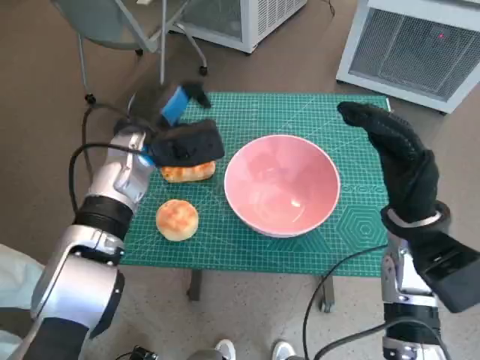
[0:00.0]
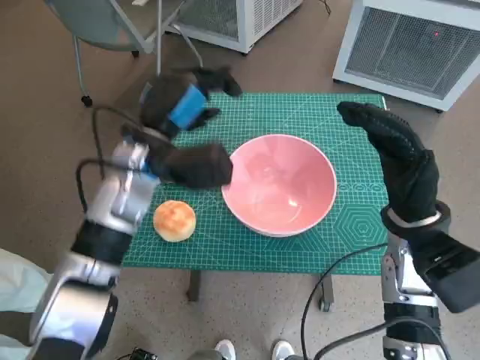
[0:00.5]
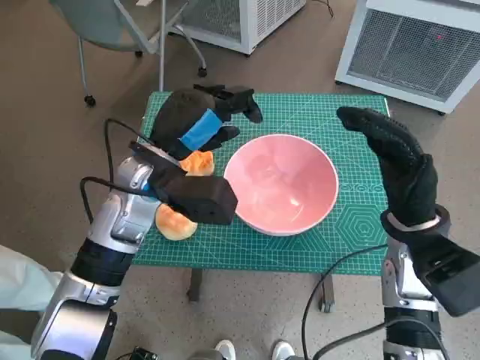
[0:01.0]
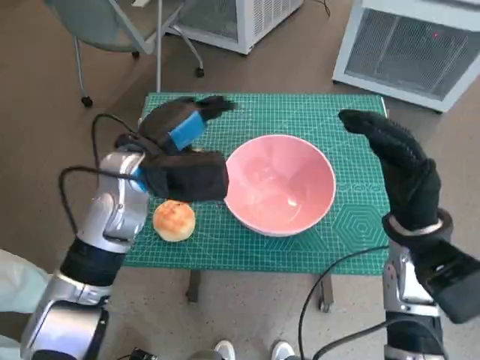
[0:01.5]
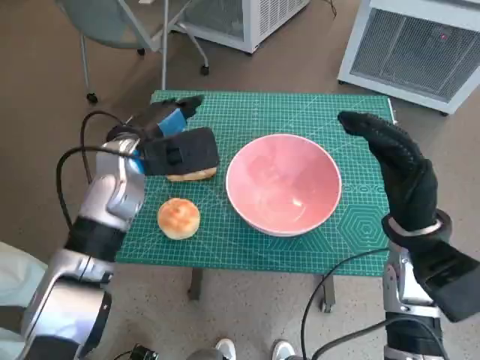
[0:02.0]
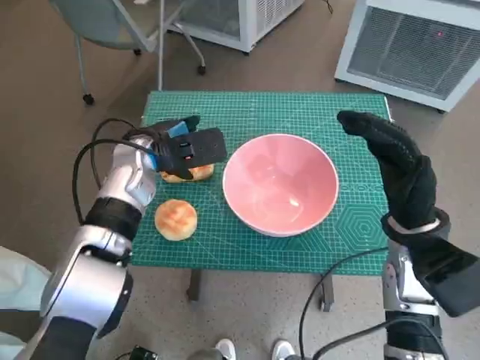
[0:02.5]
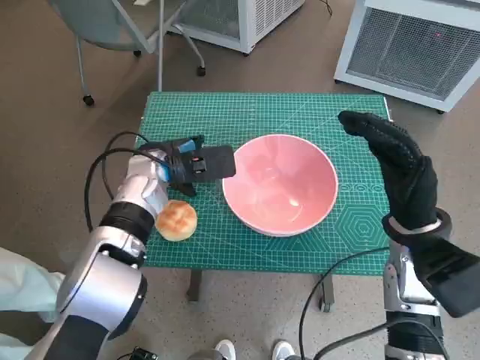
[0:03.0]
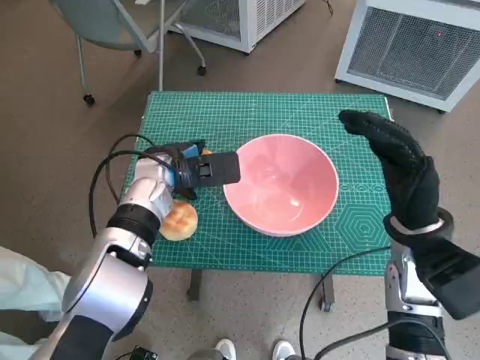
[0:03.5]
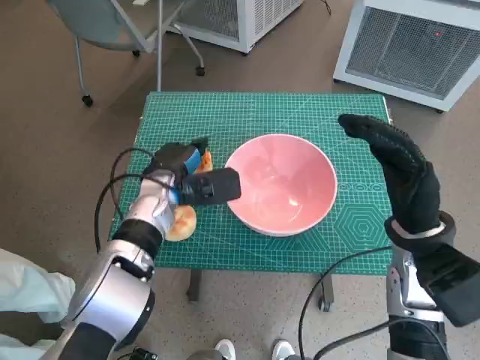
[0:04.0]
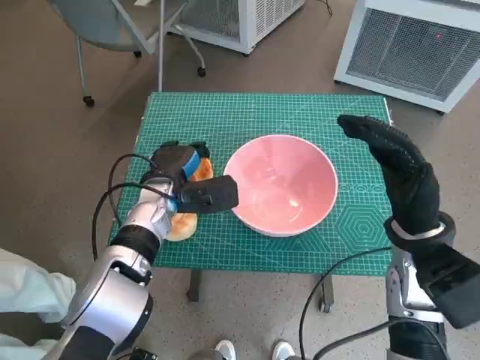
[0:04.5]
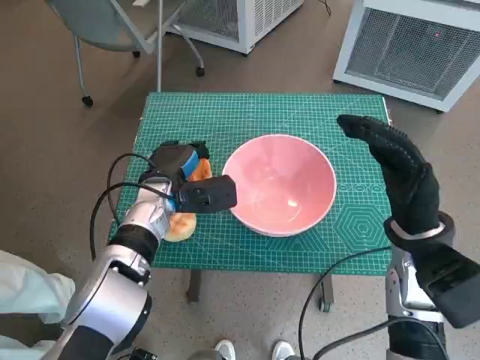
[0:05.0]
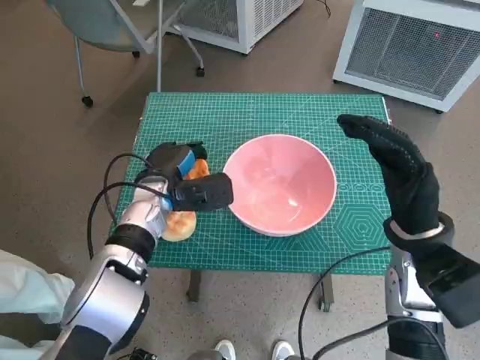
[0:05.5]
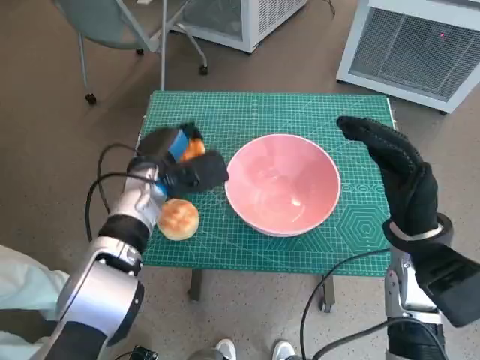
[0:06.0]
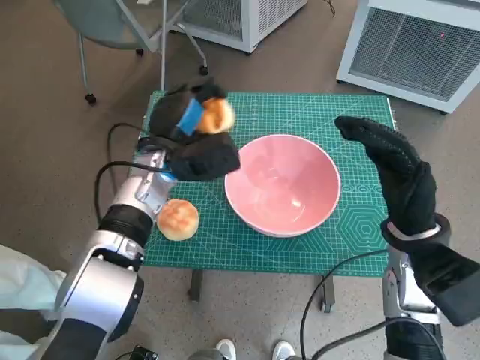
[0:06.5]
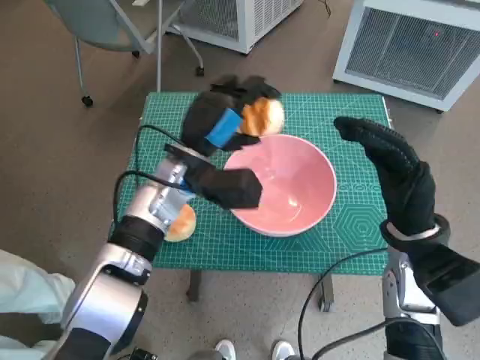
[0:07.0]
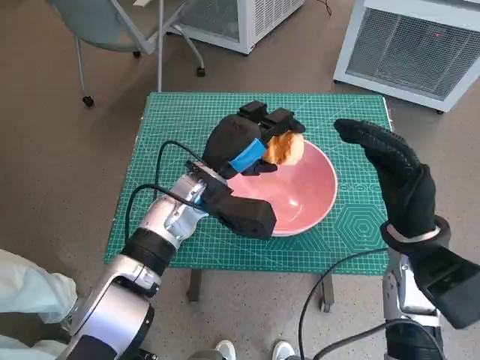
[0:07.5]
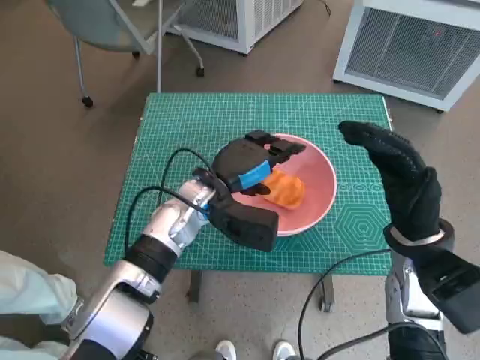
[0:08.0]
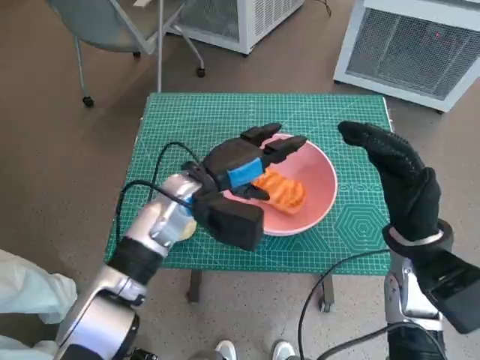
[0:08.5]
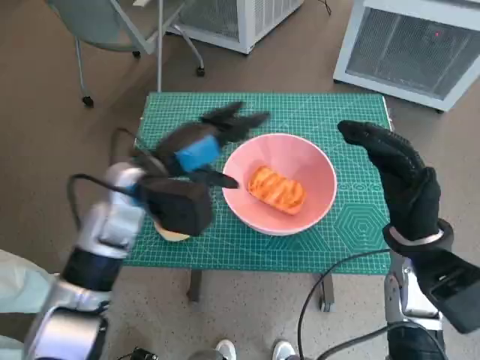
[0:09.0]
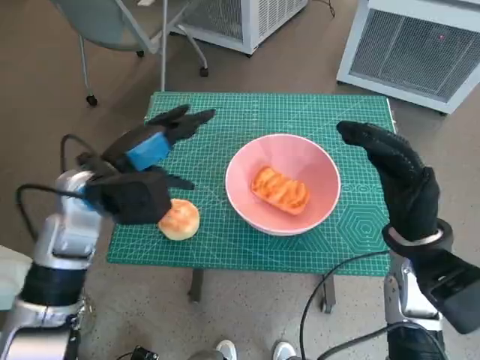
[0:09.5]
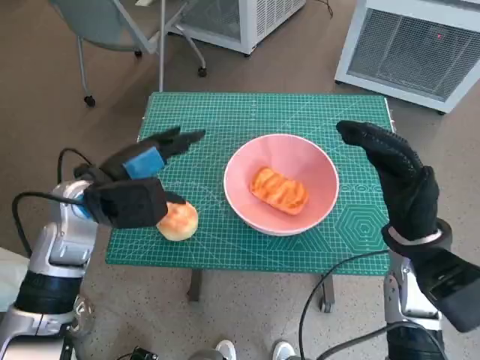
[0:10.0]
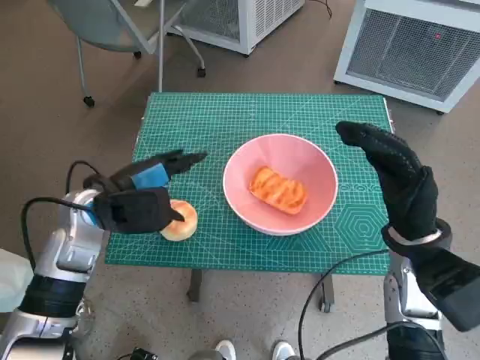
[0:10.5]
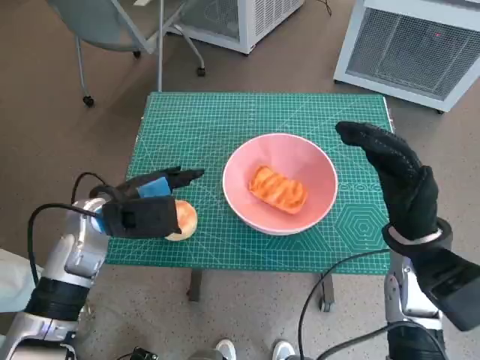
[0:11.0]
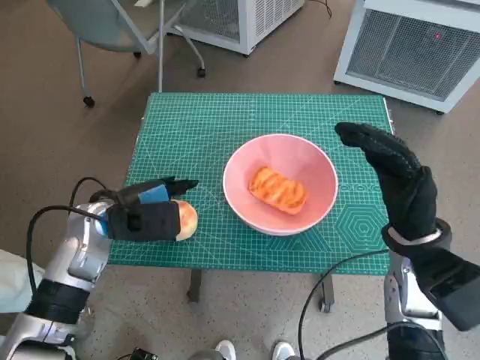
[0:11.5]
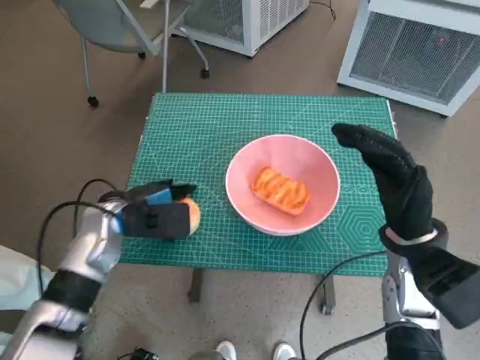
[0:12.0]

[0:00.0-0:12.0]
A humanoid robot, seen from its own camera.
Task of the whole recording: Push the bowl into the center of the table and put the bread into the bowl.
Step, 0:02.0 to 0:04.0: Grasp the long bread with left hand.
Step, 0:04.5 to 0:08.0: Place the long bread in pink bowl with left hand.
Step, 0:08.5 to 0:11.5: Grasp the round bread with left hand.
0:02.0 to 0:04.0: The left hand heads downward, covering approximately 10 cm.
0:04.0 to 0:06.0: The hands stay close to where they were, moving slightly.
0:06.0 to 0:08.0: The left hand travels to the right by approximately 10 cm.
0:08.0 to 0:10.0: The left hand is displaced to the left and upward by roughly 15 cm.
0:10.0 to 0:12.0: The left hand is displaced downward by roughly 5 cm.

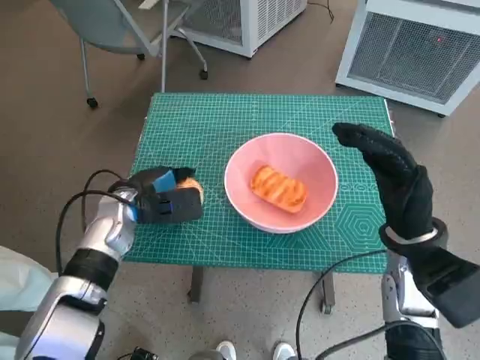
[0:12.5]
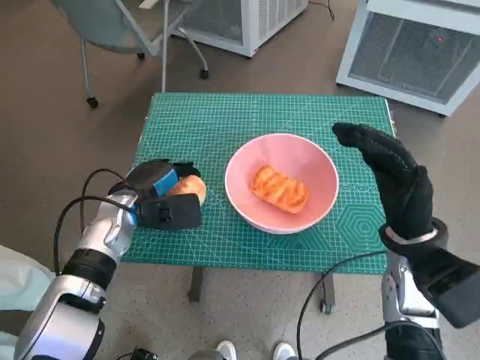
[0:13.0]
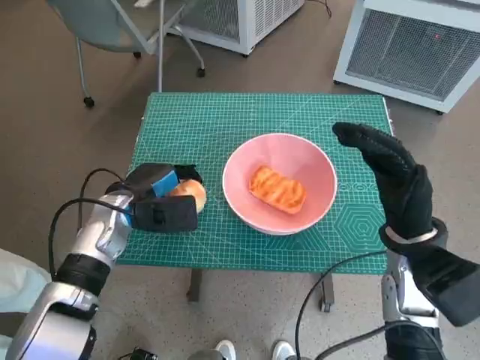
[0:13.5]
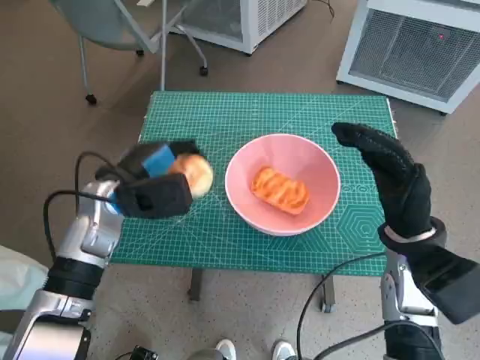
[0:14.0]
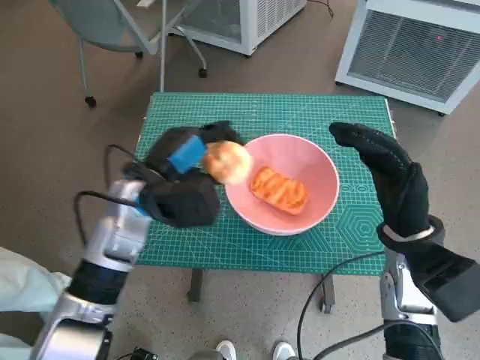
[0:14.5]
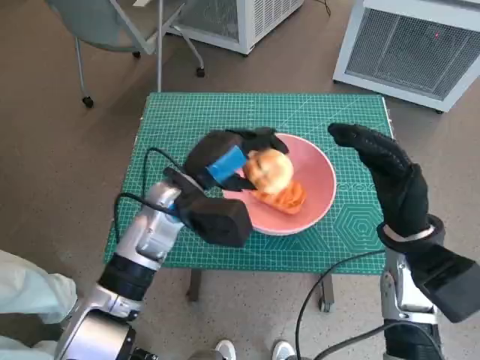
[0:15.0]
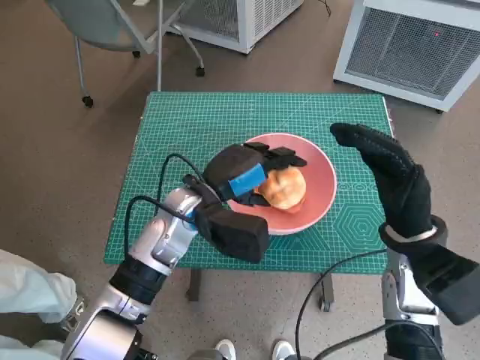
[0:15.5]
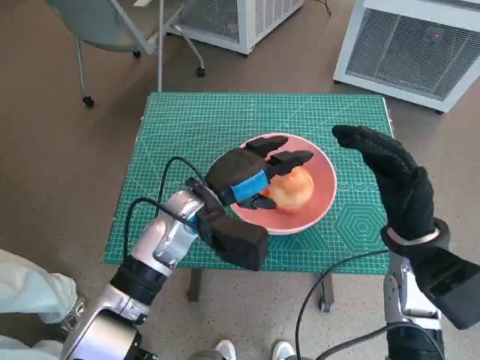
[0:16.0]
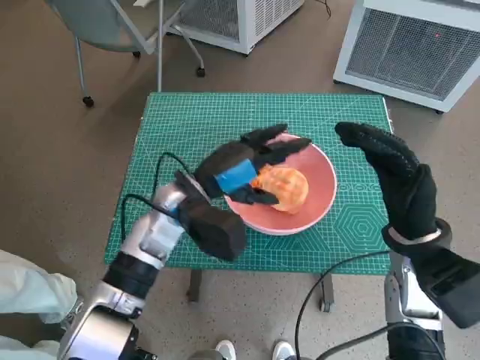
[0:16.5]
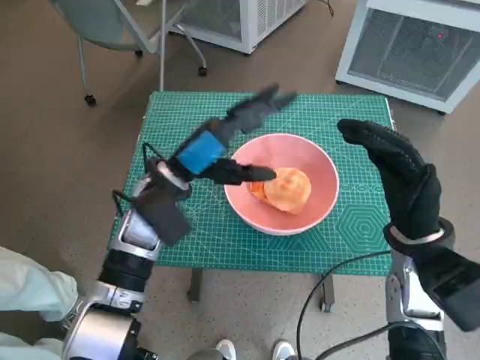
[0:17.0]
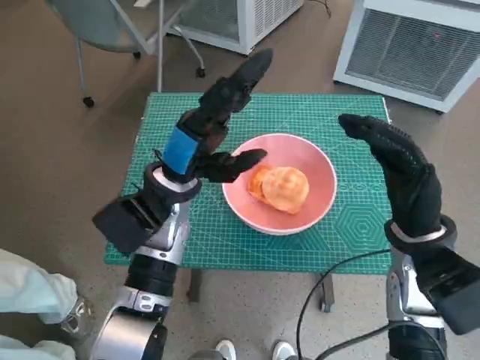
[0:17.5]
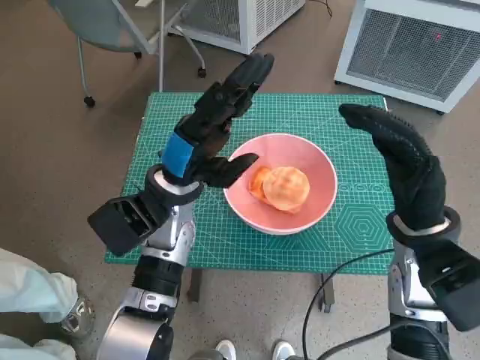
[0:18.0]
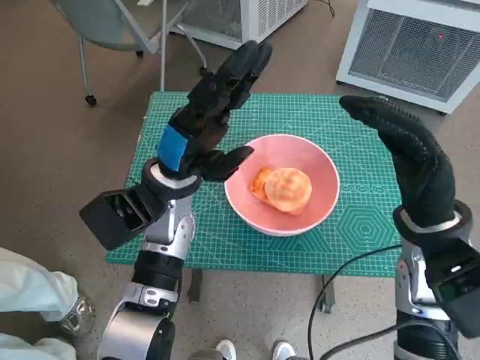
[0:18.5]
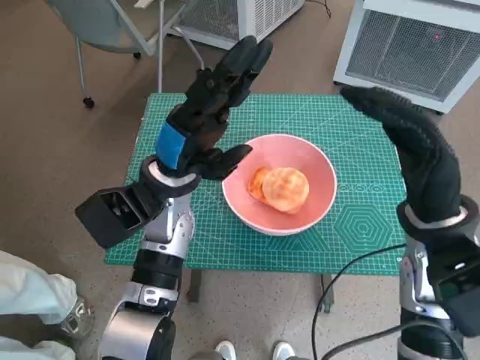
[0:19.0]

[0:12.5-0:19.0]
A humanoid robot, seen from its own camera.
Task of the whole recording: Push the bowl into the center of the table and put the bread into the bowl.
Step, 0:12.5 to 0:16.0: Place the round bread in pink bowl with left hand.
0:12.5 to 0:14.5: The left hand heads upward and to the right, covering about 10 cm.
